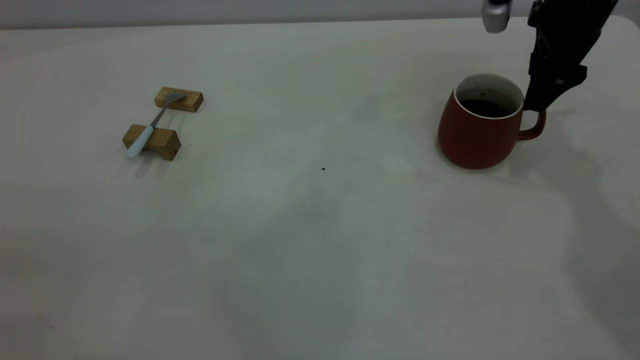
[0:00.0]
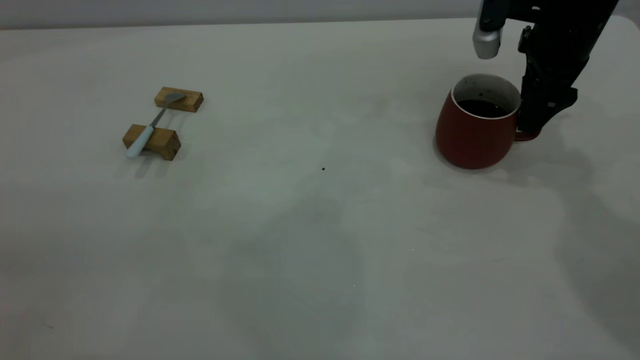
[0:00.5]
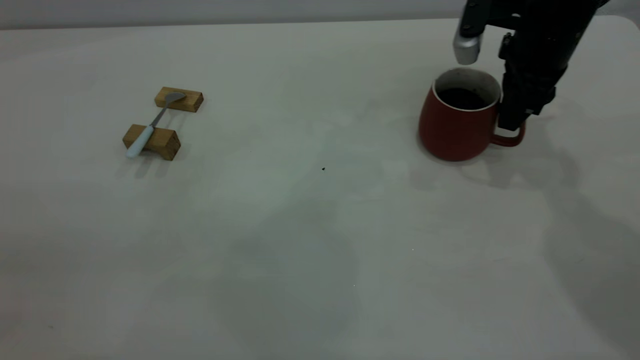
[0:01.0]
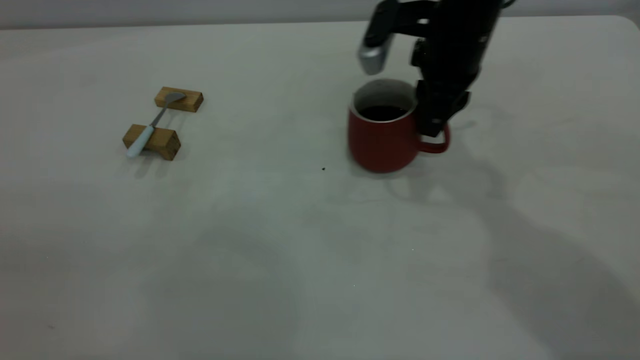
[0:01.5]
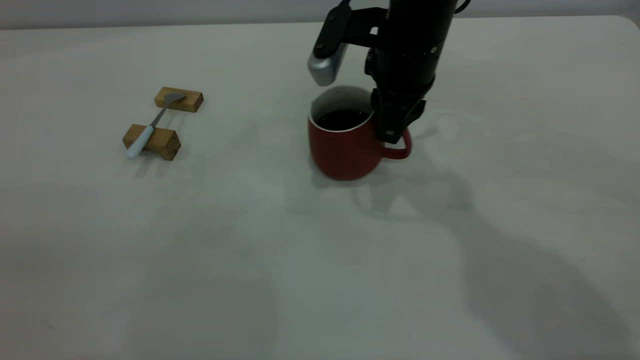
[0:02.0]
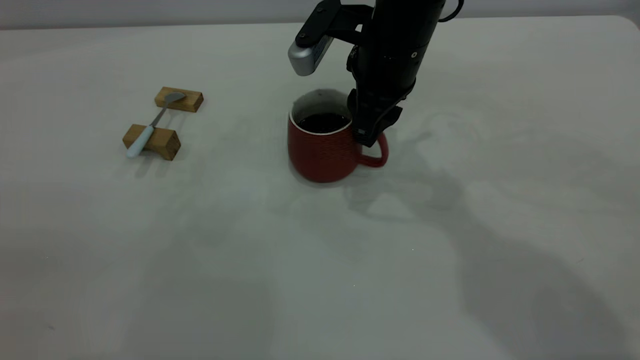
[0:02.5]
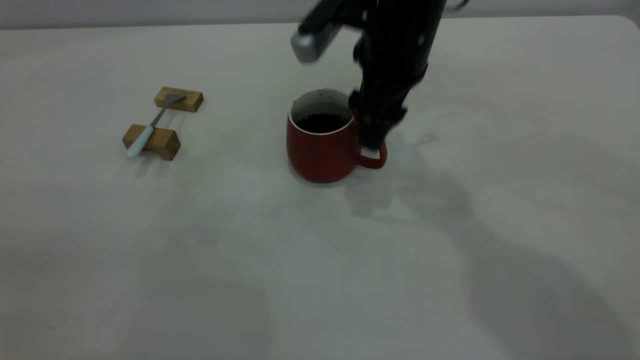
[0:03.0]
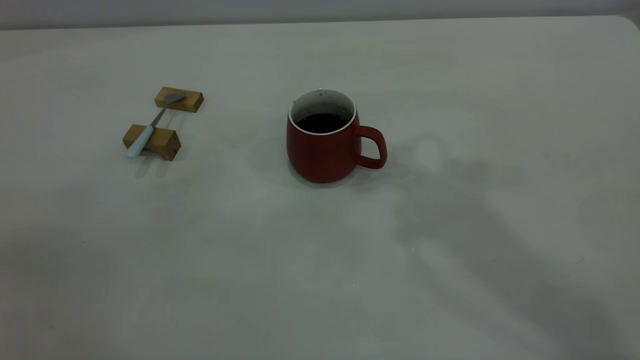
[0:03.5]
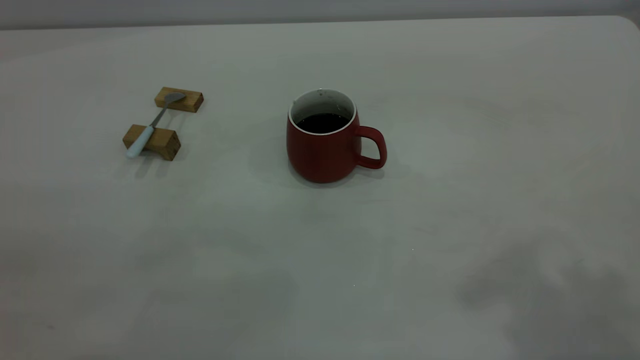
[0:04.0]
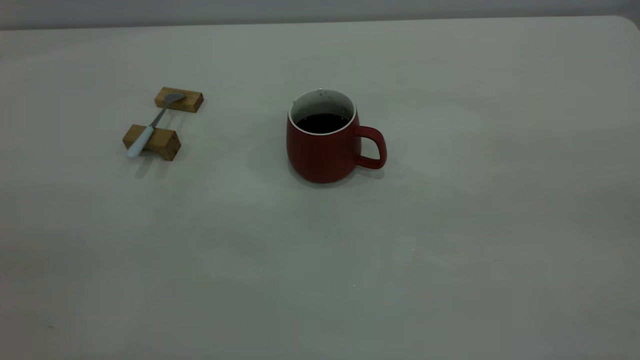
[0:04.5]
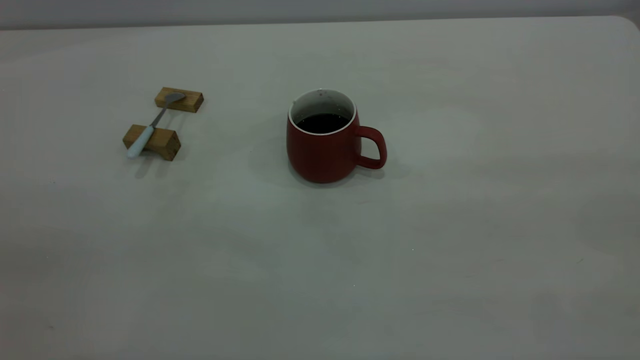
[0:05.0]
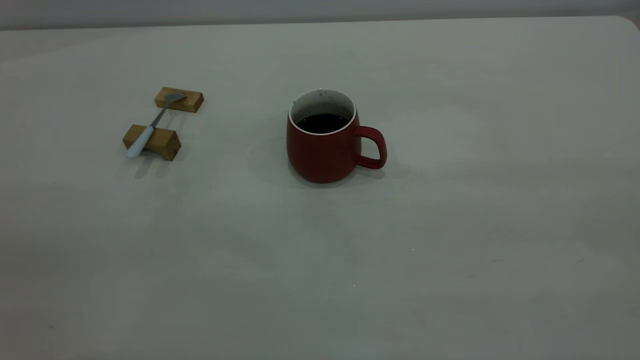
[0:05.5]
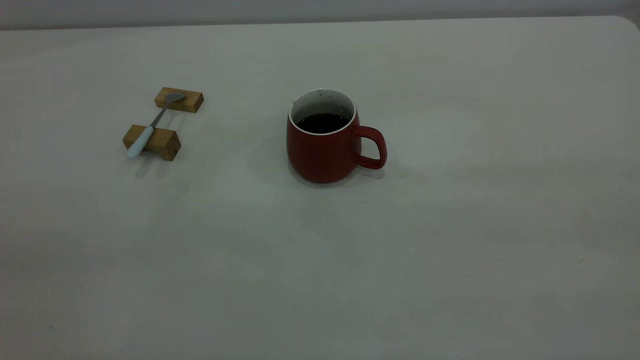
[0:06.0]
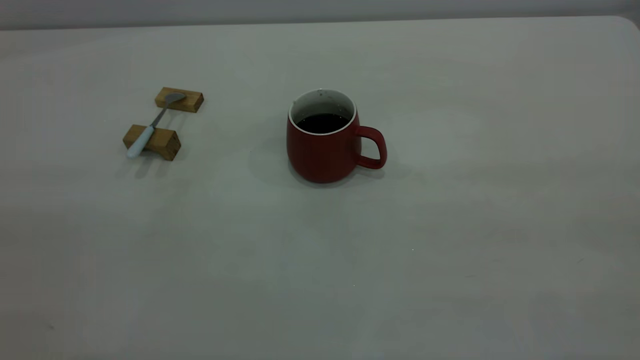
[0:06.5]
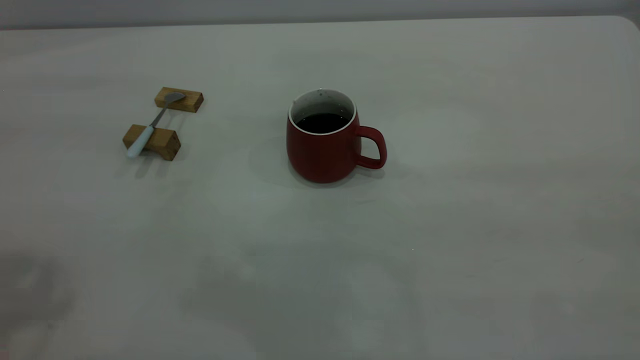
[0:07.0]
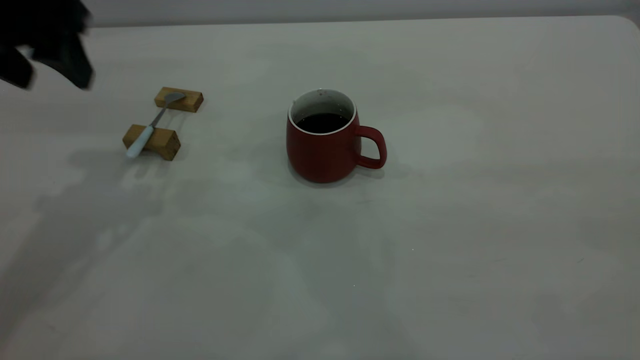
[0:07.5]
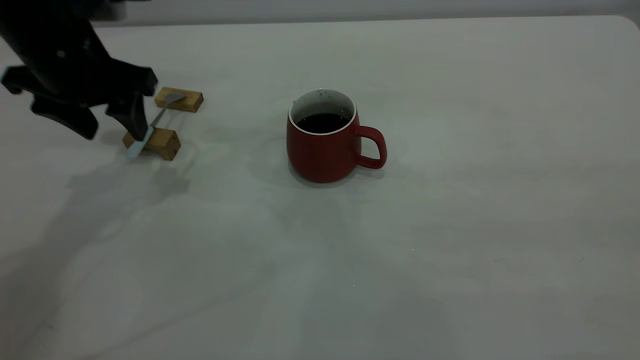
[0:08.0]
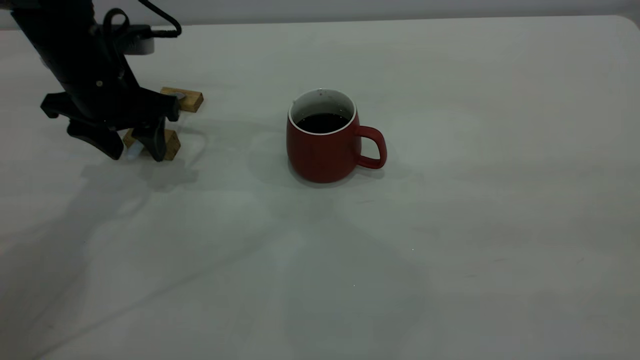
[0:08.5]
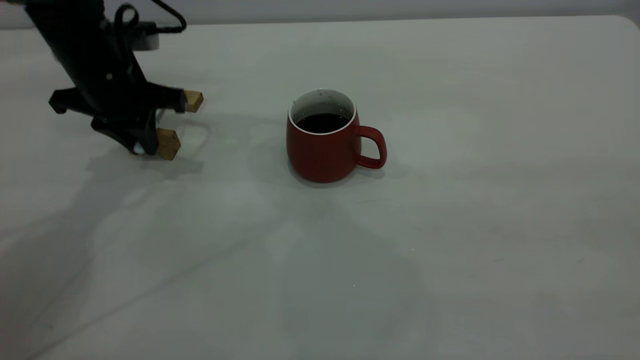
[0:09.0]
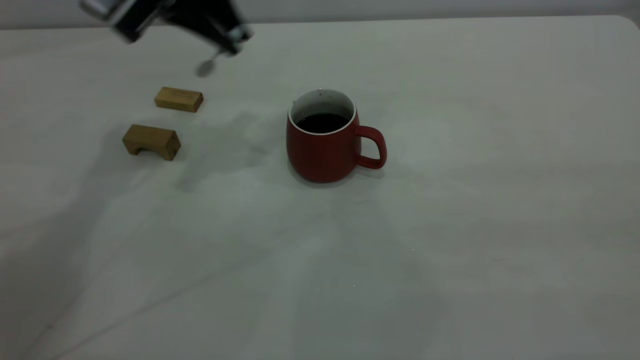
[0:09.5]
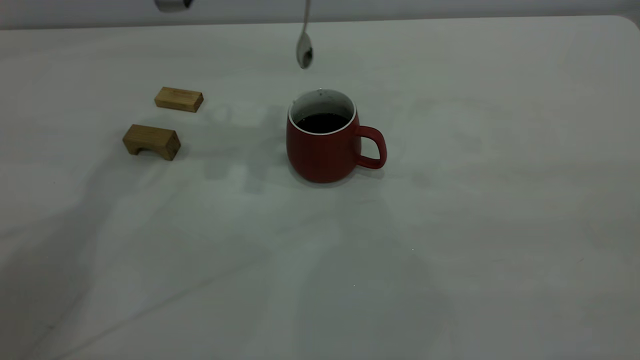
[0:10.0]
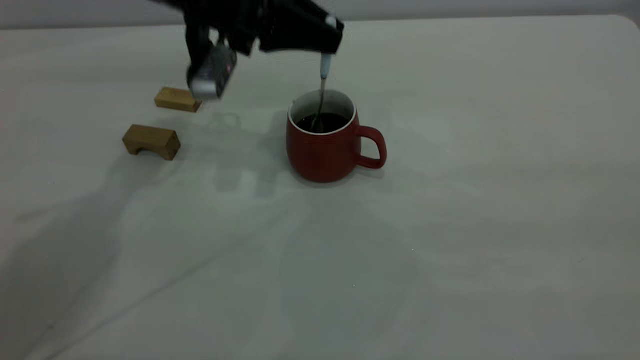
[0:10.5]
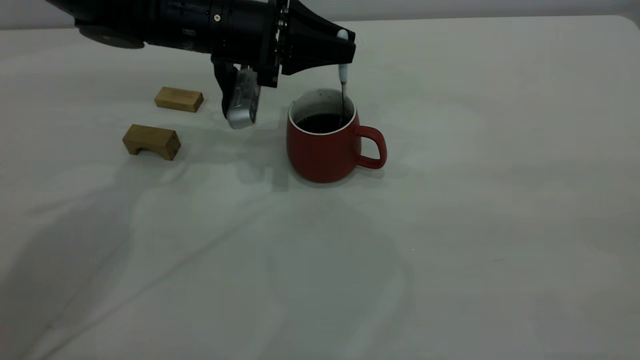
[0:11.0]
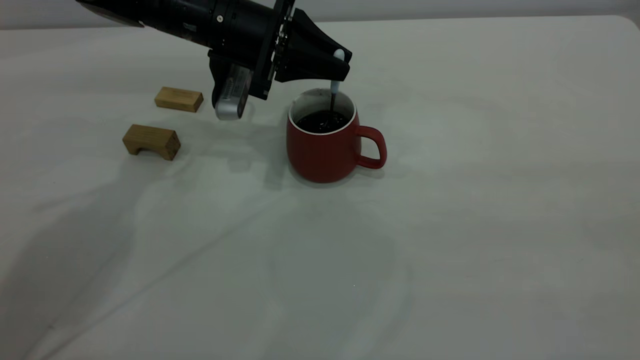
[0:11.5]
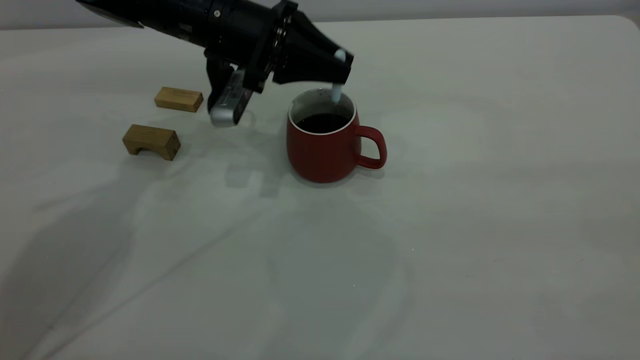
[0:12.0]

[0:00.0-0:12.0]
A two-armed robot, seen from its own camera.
Step, 0:00.0 to 0:03.0: Move the cup with coffee to the center of view.
Step, 0:03.5 to 0:09.0: Pick up the spoon.
0:00.0 to 0:02.0: The right gripper shifts about 15 cm to the left, and closes.
0:02.0 to 0:04.0: The right gripper travels upward, backward and to the right by about 40 cm, and opens up.
0:06.0 to 0:08.0: The left gripper goes roughly 40 cm forward and downward.
0:08.0 to 0:10.0: The left gripper moves to the right, upward and forward, roughly 15 cm, and closes.
0:10.0 to 0:12.0: The left gripper travels downward by some 15 cm.

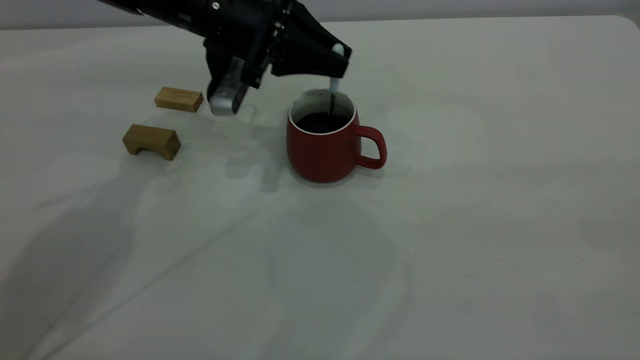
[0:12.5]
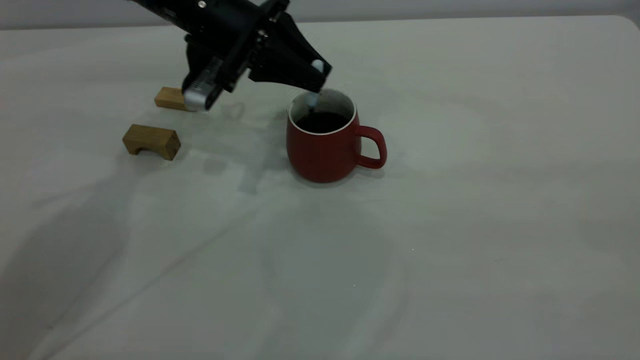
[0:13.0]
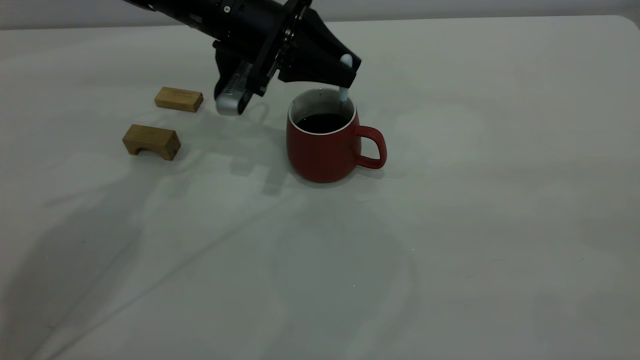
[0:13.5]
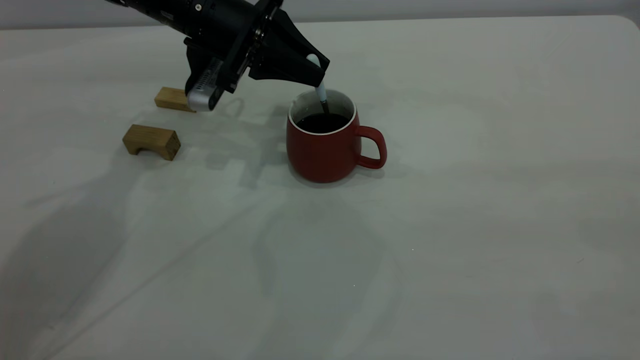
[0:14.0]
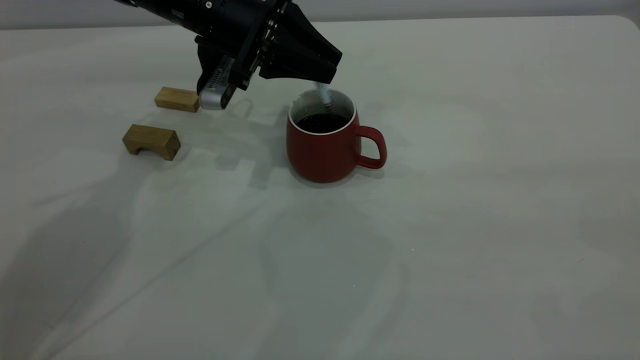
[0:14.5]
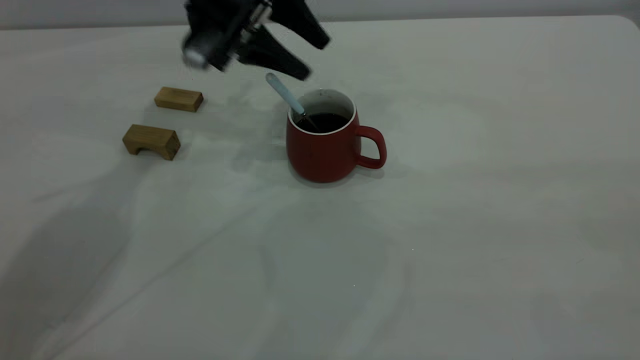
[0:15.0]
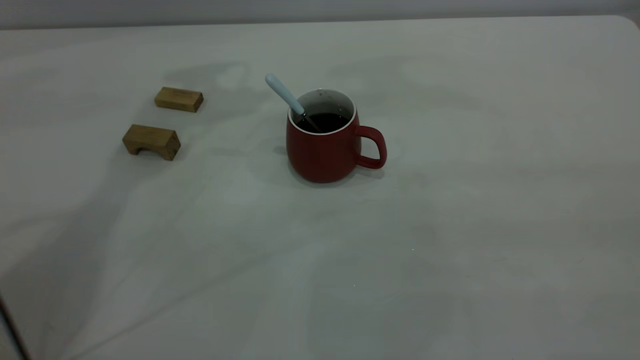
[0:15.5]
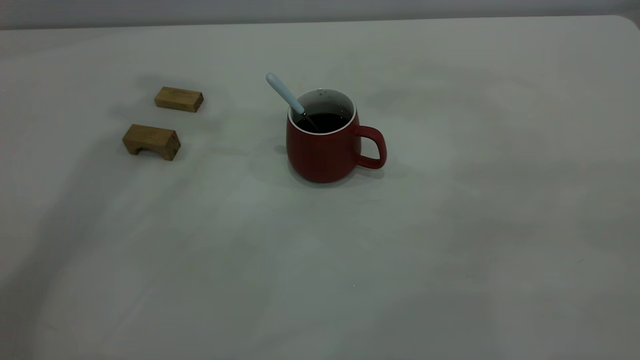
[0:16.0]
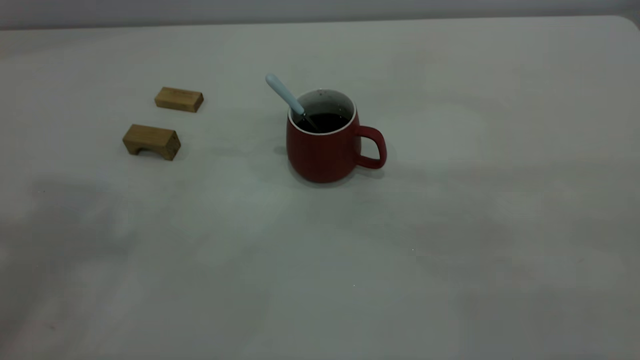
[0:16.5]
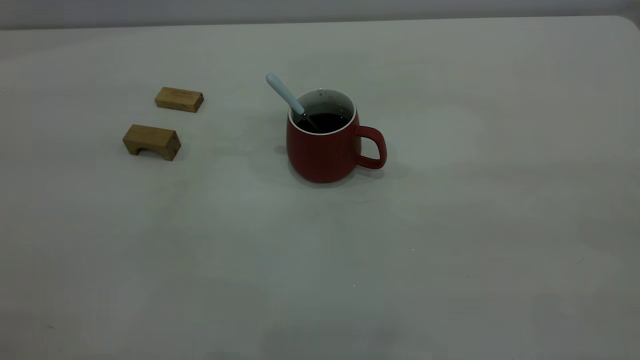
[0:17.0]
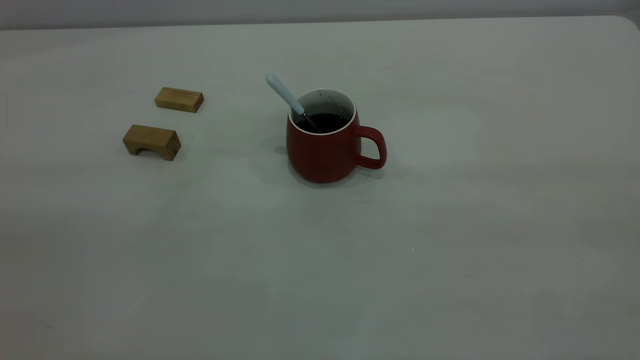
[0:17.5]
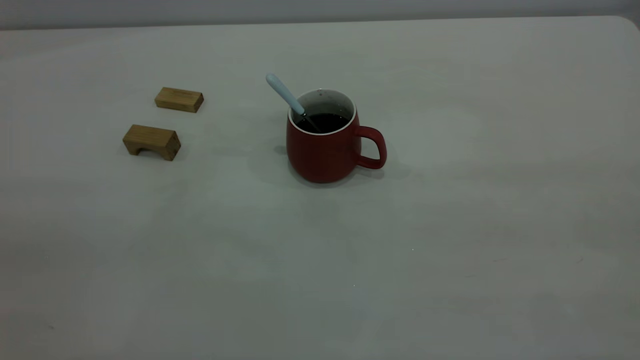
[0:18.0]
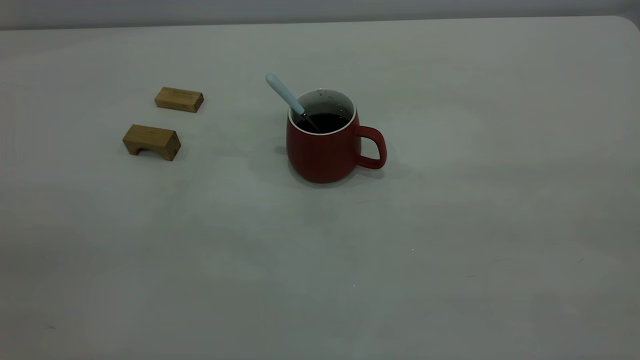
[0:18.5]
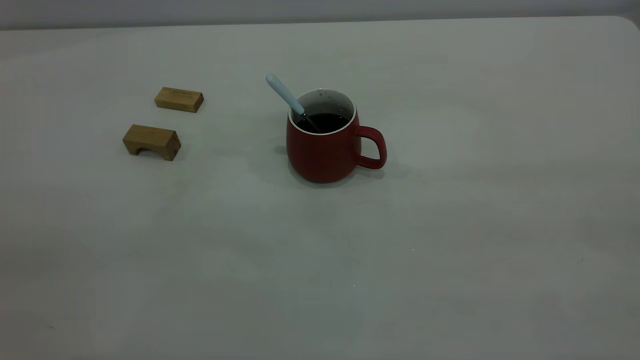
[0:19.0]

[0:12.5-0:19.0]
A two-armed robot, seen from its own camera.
Step, 0:12.5 to 0:15.0: Stir the coffee in the cup.
0:12.5 to 0:14.5: The left gripper opens its fingers.
0:14.5 to 0:17.0: The left gripper goes roughly 50 cm backward, upward and to the left, and opens up.
